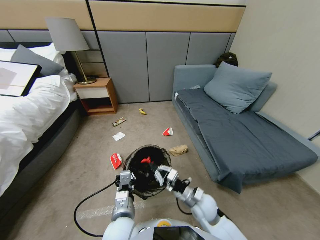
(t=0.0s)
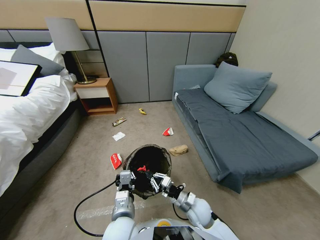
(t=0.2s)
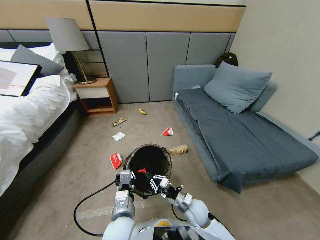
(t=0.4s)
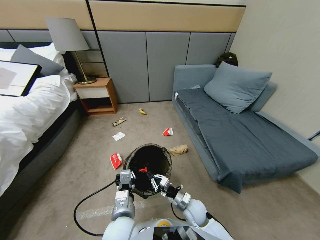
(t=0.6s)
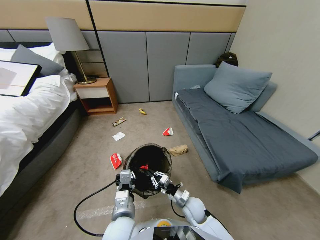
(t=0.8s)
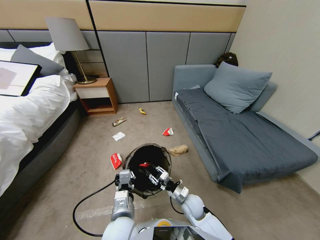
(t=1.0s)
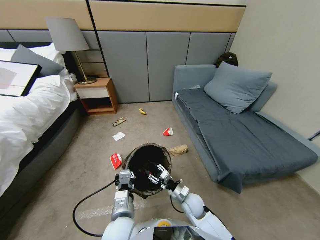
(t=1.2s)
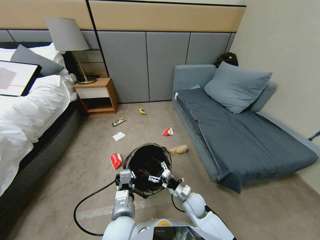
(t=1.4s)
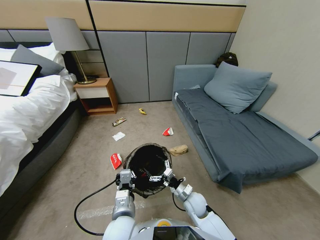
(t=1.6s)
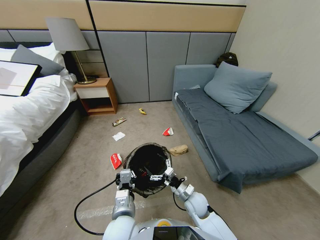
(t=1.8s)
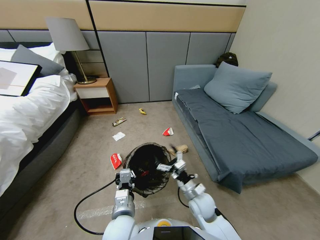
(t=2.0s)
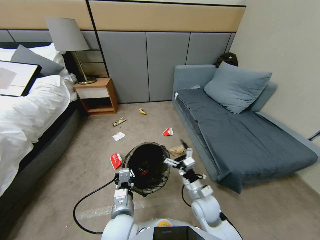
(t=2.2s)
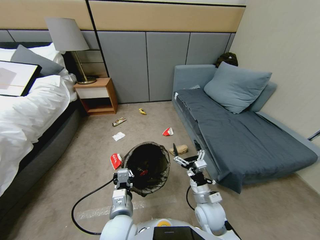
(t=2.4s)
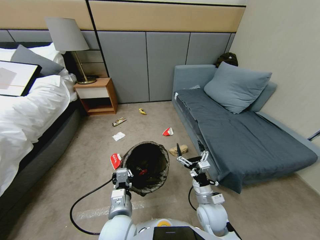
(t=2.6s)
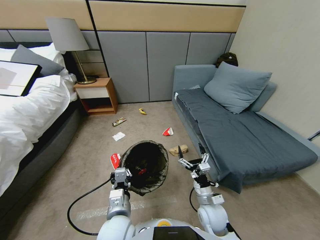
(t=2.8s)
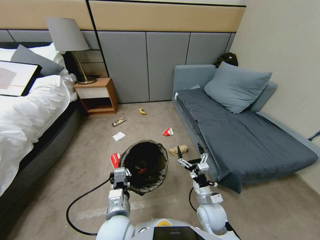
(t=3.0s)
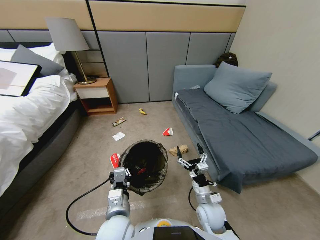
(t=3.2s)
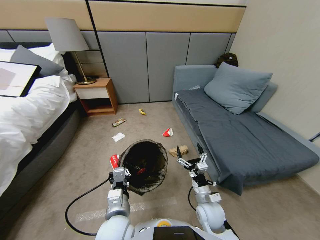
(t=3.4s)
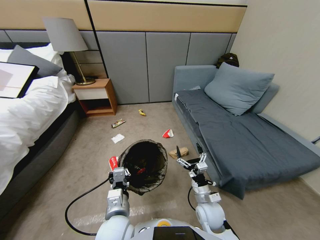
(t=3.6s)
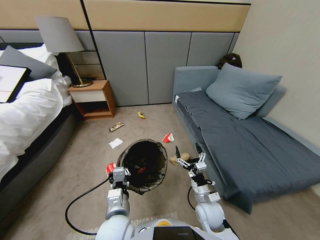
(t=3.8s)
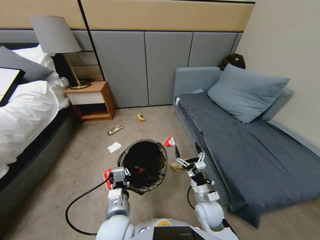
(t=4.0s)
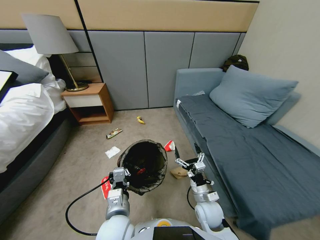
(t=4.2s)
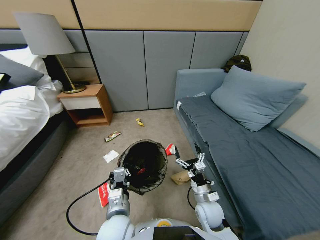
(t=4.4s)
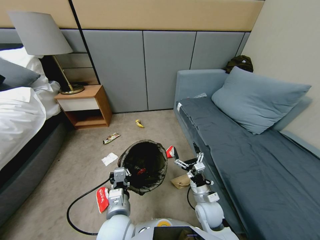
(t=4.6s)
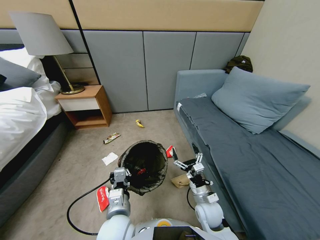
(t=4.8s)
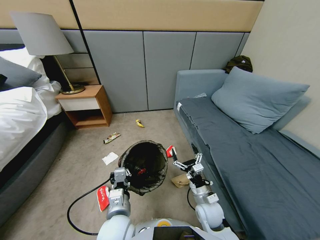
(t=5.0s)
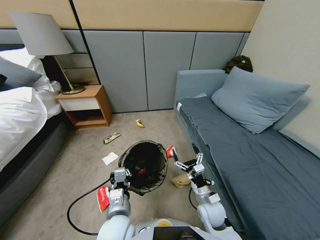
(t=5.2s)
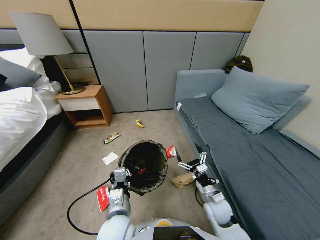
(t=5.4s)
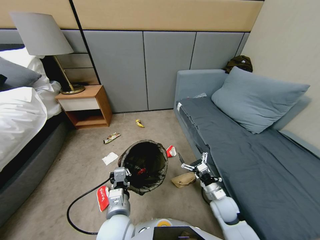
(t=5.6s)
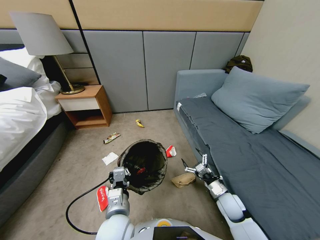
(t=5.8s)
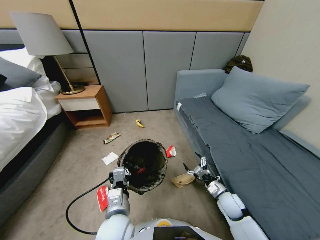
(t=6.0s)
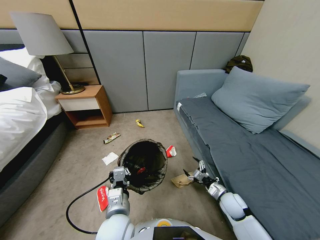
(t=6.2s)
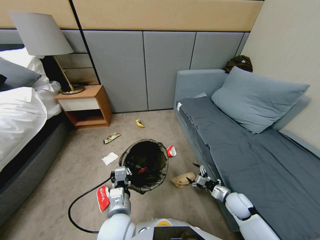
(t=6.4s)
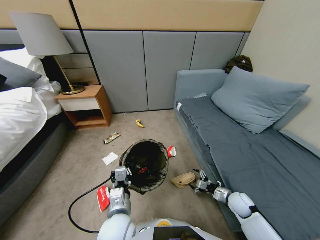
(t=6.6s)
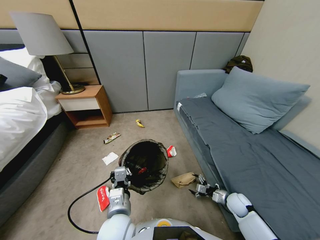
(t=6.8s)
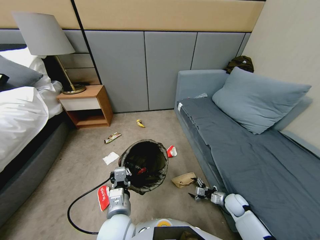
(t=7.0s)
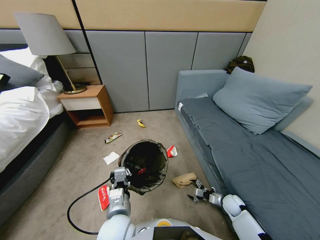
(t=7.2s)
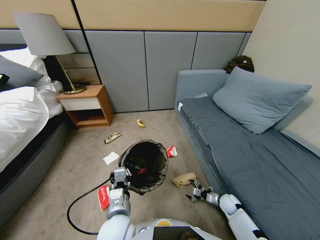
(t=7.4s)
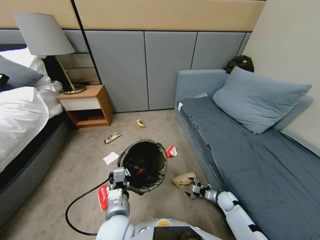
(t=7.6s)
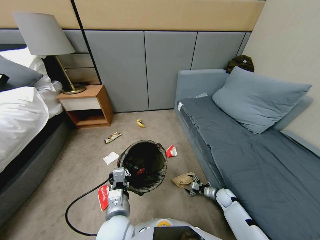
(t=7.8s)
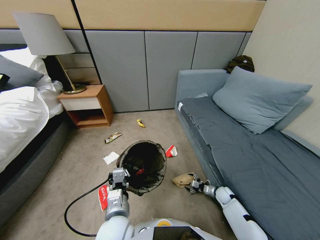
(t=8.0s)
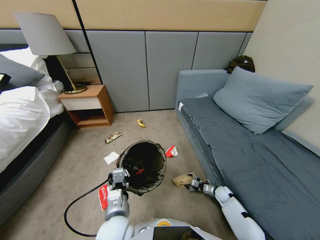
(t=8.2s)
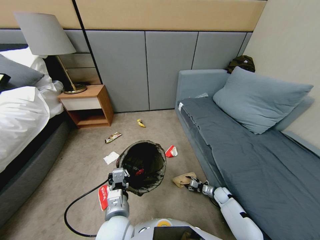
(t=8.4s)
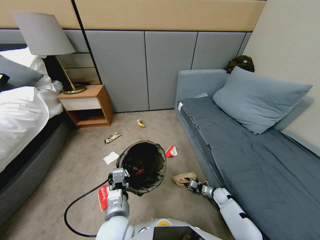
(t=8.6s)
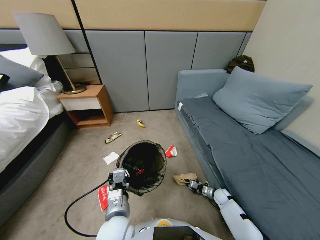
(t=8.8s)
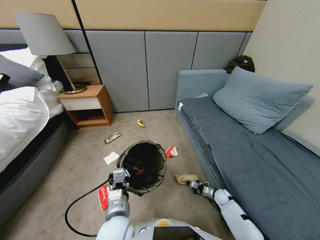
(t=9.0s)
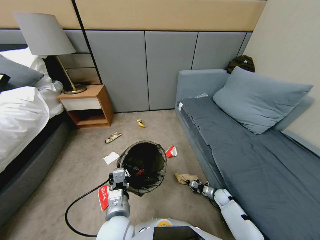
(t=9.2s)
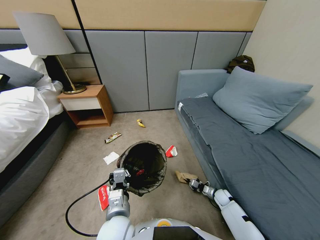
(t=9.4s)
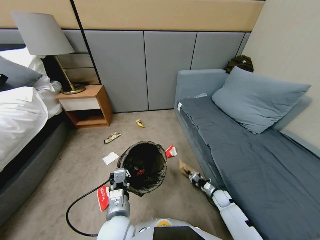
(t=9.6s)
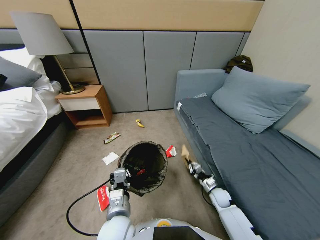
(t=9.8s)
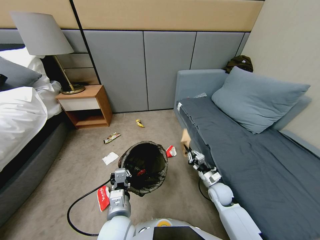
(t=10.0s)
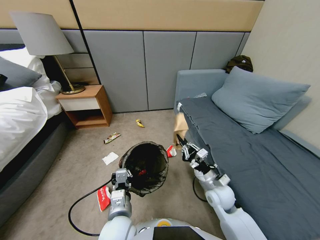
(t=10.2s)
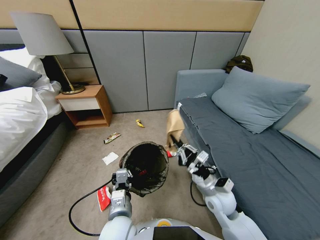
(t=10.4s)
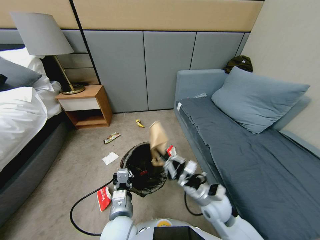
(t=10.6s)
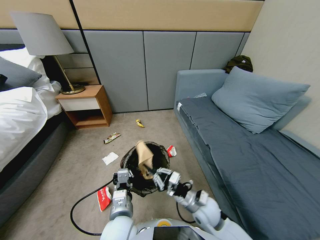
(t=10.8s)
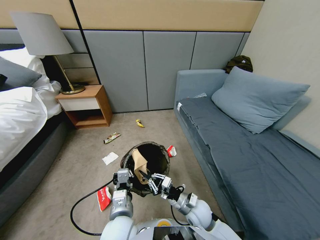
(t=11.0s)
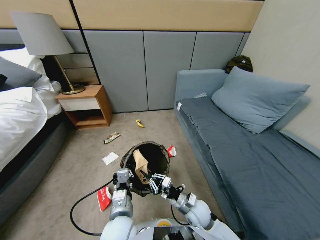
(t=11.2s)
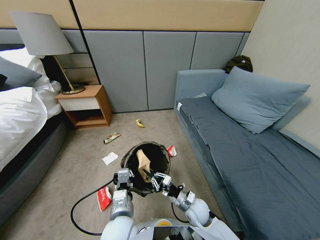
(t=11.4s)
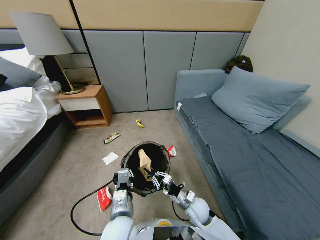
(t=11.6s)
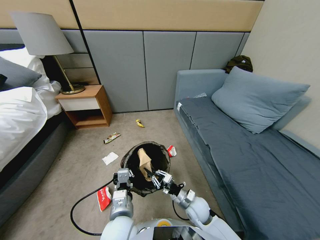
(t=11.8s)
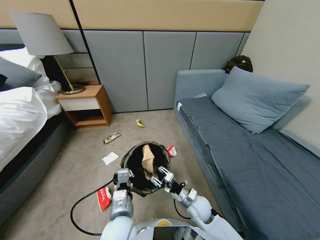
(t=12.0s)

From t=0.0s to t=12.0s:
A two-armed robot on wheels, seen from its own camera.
Task of the whole recording: Pick up the trash bin, then pick up the garbage from the floor and place it into the trash bin.
From t=0.0s to t=1.6s: The right gripper opens up.
From t=1.6s to t=3.0s: The right gripper heads upward, covering roughly 5 cm.
From t=4.4s to t=6.0s: The right gripper goes about 10 cm to the right.
From t=6.0s to t=7.6s: The right gripper goes some 15 cm downward, to the right and forward.
From t=7.6s to t=9.0s: The right gripper closes.
From t=9.0s to t=10.4s: The right gripper travels upward and to the left by some 35 cm.
From t=10.4s to t=12.0s: The right gripper moves downward, roughly 10 cm, and opens up.

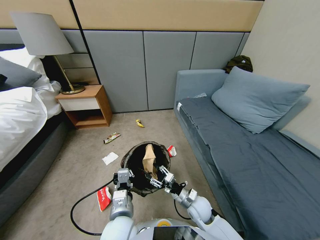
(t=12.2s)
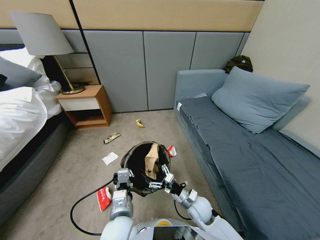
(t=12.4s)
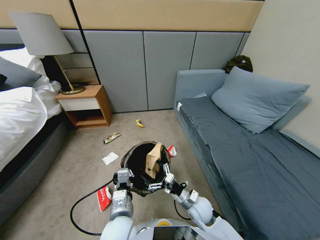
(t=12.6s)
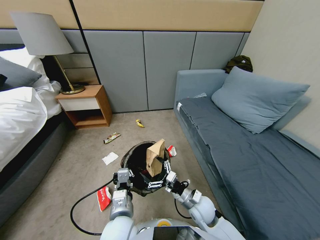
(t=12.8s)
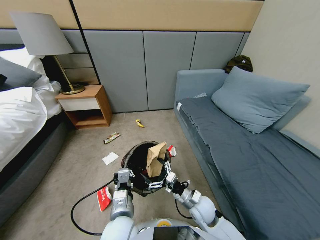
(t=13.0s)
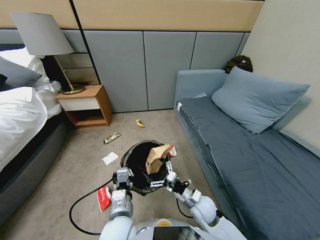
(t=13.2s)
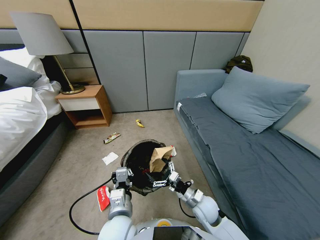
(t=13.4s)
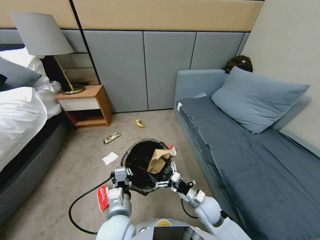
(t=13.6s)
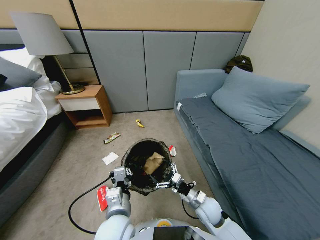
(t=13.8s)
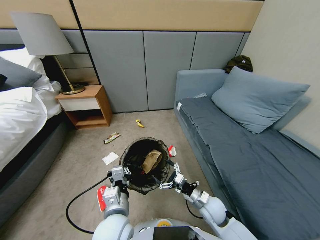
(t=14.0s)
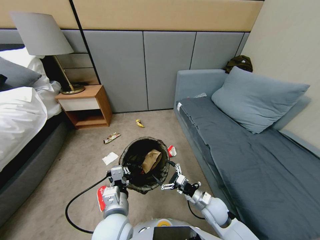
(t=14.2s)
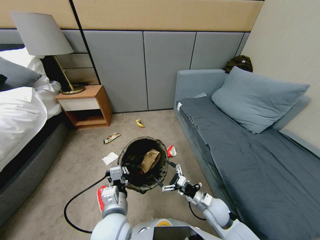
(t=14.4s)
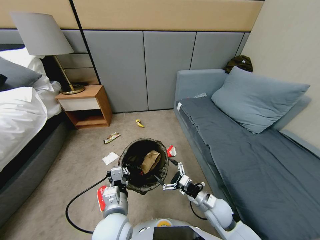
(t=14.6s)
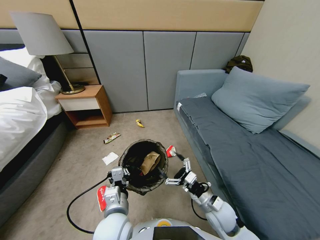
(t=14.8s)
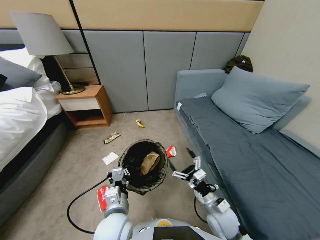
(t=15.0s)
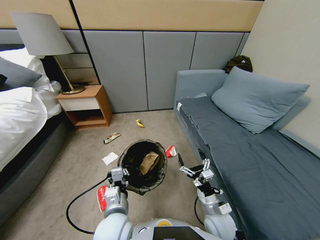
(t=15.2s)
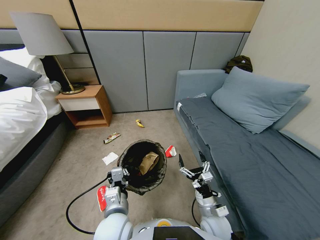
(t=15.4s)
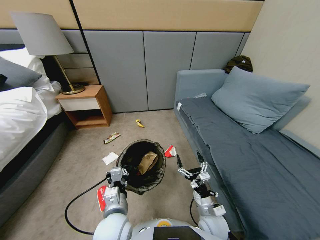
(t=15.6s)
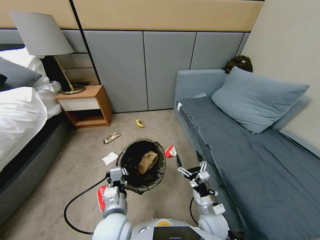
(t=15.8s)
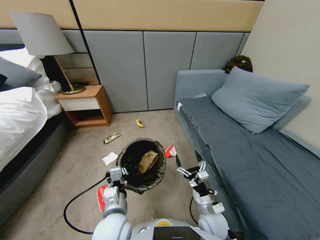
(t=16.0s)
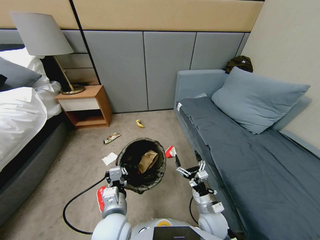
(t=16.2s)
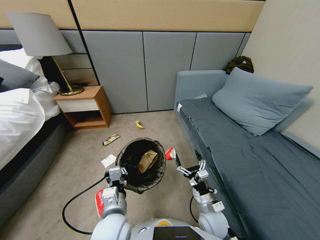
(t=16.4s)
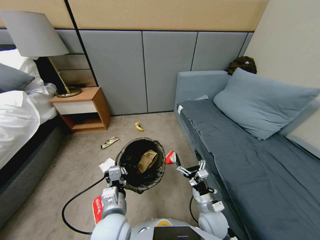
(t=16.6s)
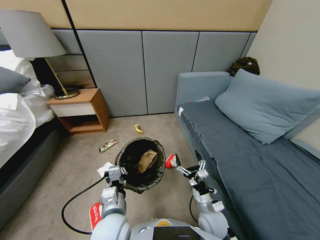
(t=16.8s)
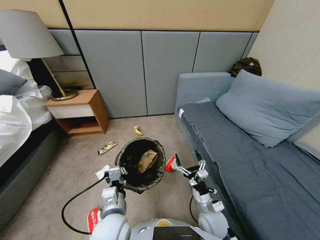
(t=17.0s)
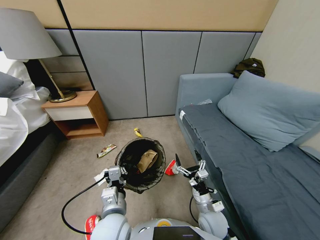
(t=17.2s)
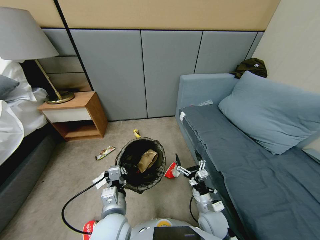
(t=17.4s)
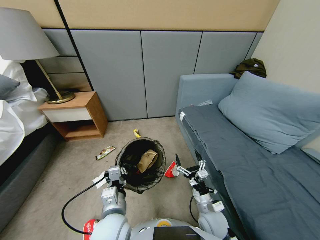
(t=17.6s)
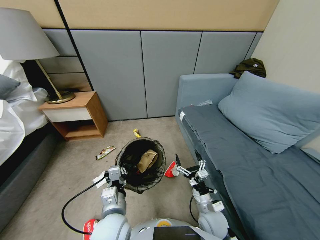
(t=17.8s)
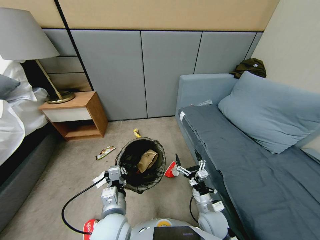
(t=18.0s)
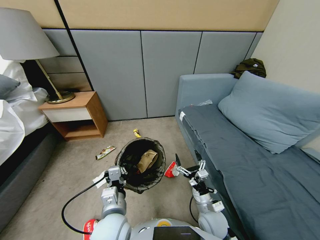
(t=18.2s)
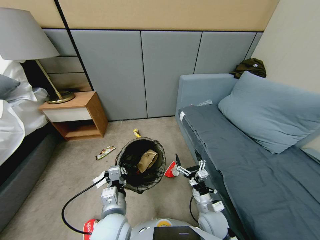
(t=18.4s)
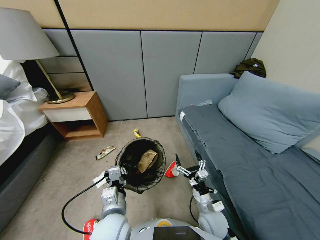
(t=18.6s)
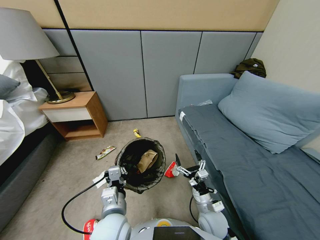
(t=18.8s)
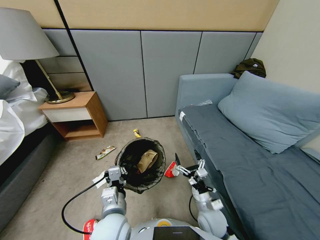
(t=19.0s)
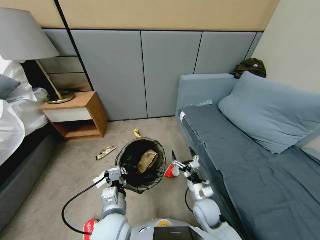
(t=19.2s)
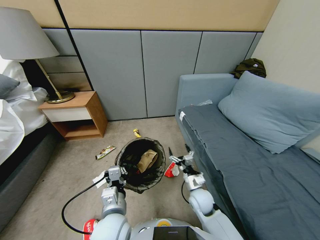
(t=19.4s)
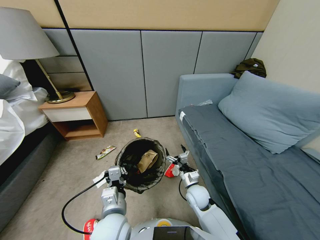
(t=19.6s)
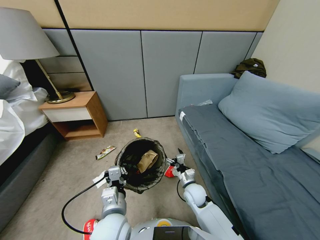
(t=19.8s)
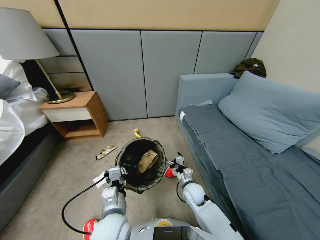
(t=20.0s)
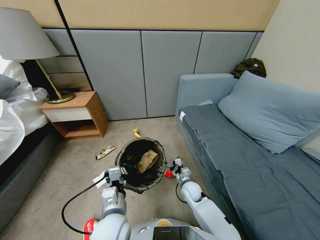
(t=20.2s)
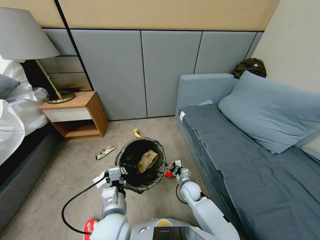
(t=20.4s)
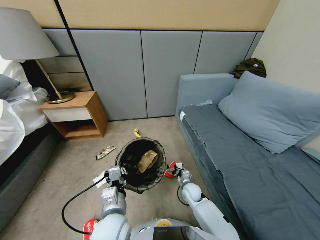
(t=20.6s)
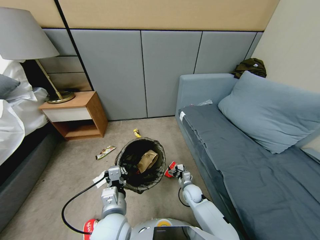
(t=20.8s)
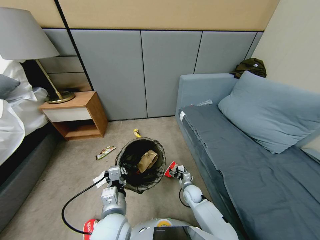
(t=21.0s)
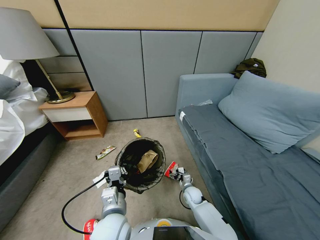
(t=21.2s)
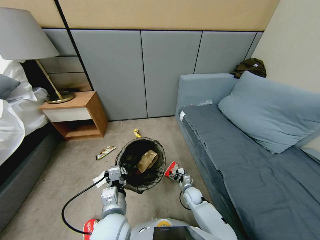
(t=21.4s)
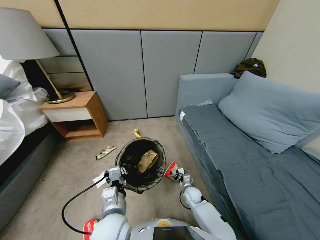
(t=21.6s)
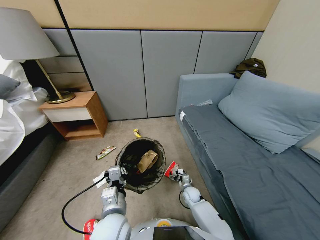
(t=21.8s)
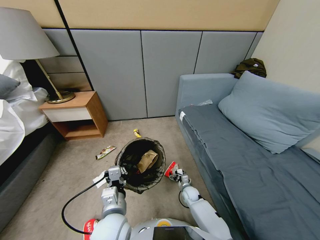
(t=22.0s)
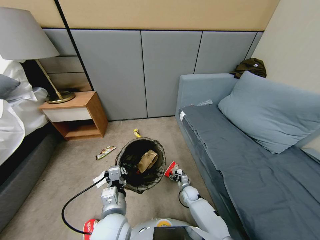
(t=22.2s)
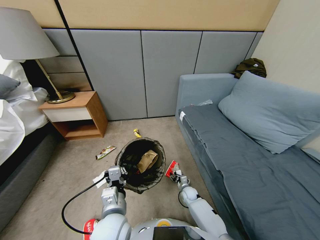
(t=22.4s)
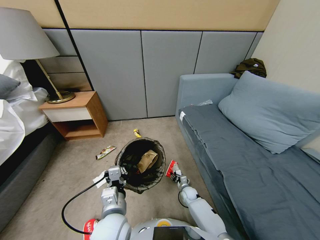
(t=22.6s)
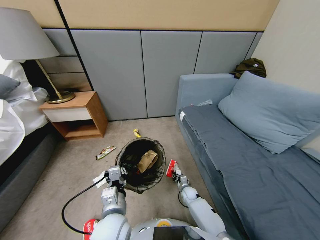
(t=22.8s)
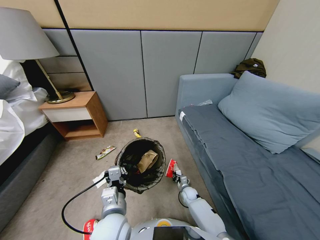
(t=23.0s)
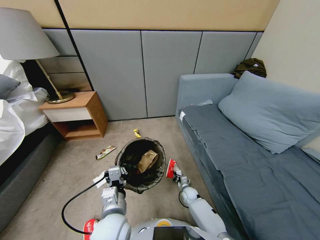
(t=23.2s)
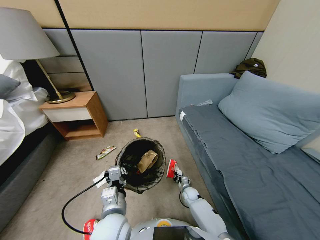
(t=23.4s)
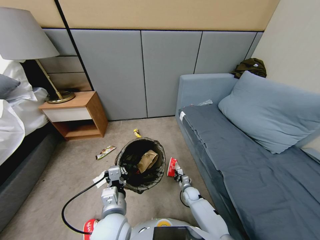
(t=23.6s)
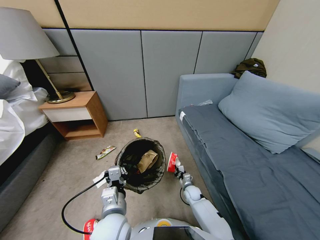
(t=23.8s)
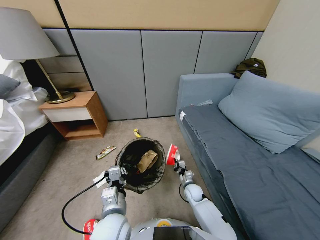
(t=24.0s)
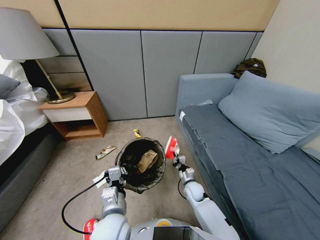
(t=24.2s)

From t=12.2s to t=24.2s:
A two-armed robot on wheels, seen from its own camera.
Task of the whole recording: Pick up the trash bin, then pick up the garbage from the floor and place it into the trash bin.
From t=12.2s to t=13.8s: The grippers make only small movements.
From t=13.8s to t=15.2s: The right gripper changes place by some 5 cm.
From t=15.2s to t=16.6s: The grippers make only small movements.
From t=16.6s to t=18.2s: Both grippers stay about where they are.
From t=18.2s to t=19.8s: The right gripper travels forward by some 10 cm.
From t=19.8s to t=21.2s: The right gripper heads downward, covering roughly 10 cm.
From t=21.2s to t=22.6s: The right gripper heads downward, covering approximately 5 cm, and closes.
From t=22.6s to t=24.2s: The right gripper is displaced upward by approximately 20 cm, and closes.
